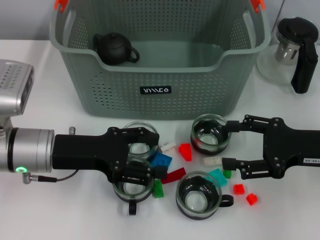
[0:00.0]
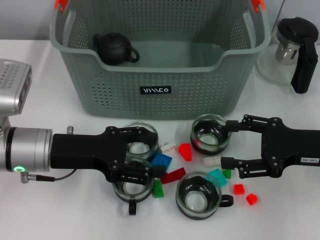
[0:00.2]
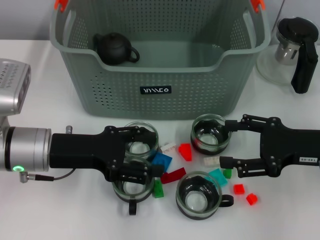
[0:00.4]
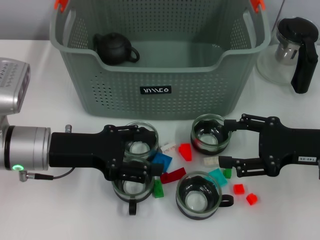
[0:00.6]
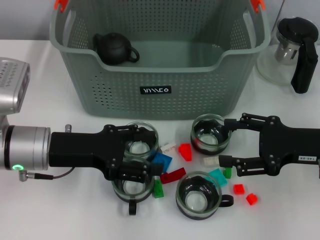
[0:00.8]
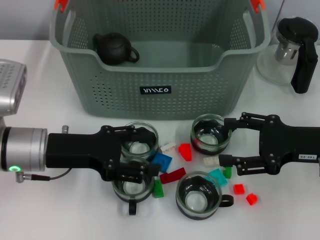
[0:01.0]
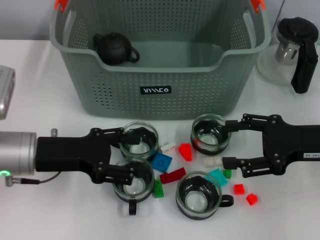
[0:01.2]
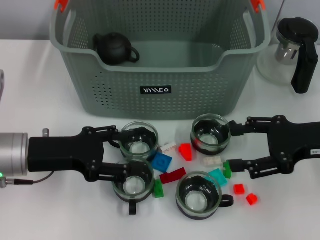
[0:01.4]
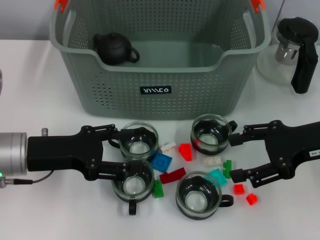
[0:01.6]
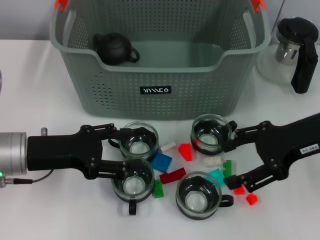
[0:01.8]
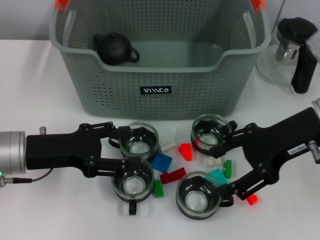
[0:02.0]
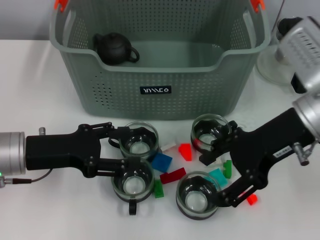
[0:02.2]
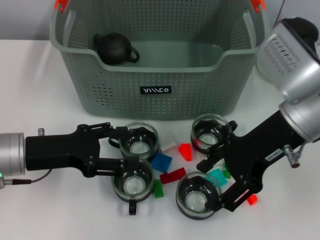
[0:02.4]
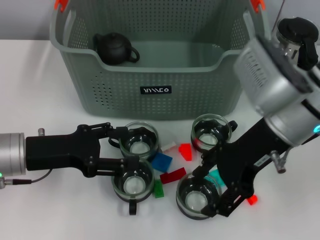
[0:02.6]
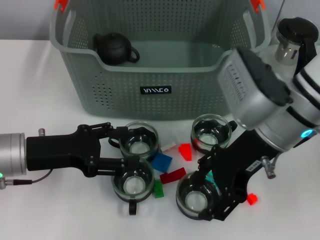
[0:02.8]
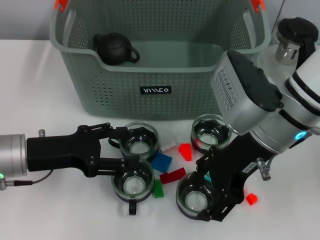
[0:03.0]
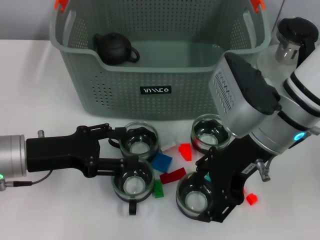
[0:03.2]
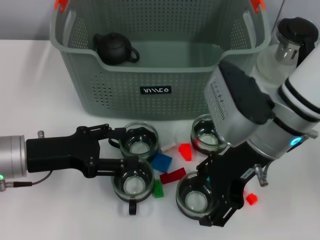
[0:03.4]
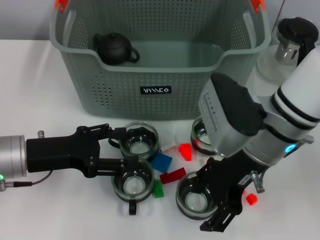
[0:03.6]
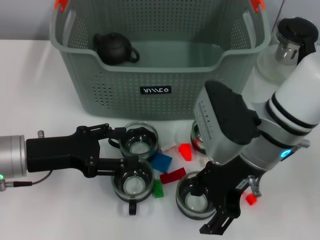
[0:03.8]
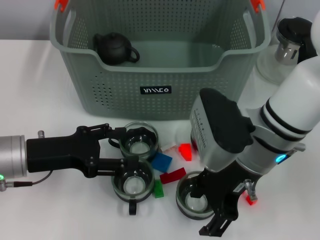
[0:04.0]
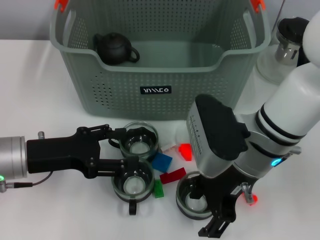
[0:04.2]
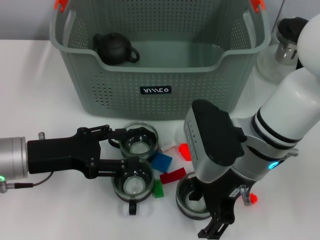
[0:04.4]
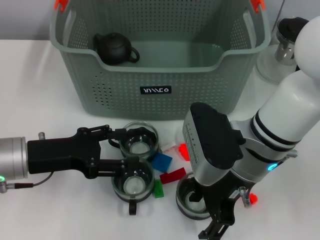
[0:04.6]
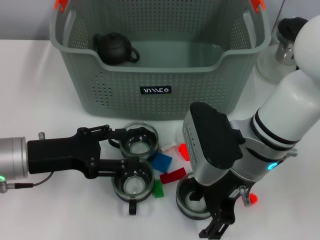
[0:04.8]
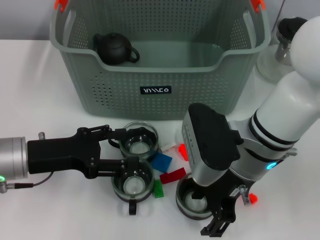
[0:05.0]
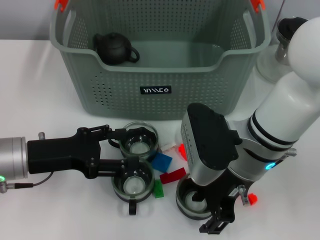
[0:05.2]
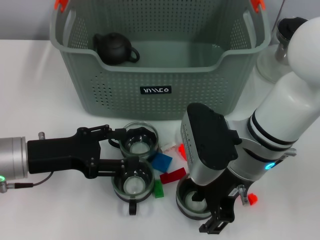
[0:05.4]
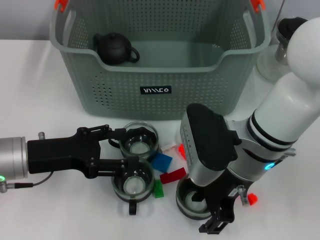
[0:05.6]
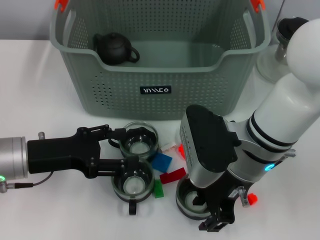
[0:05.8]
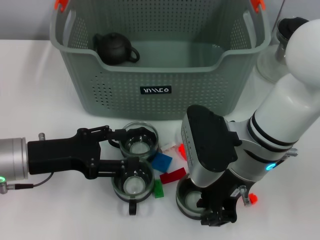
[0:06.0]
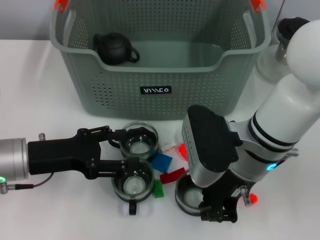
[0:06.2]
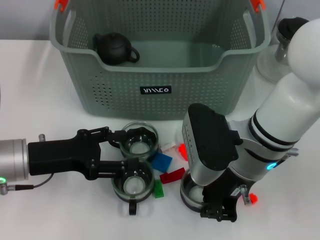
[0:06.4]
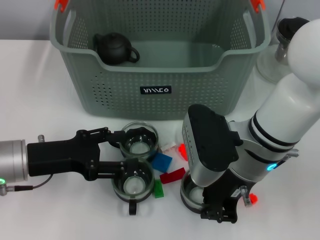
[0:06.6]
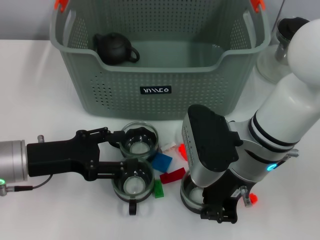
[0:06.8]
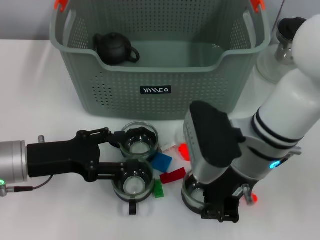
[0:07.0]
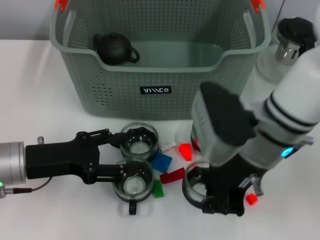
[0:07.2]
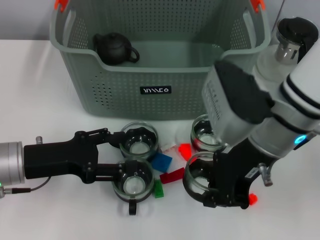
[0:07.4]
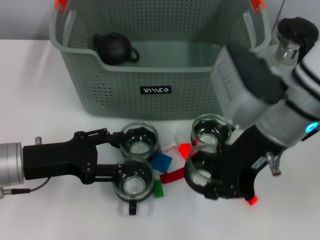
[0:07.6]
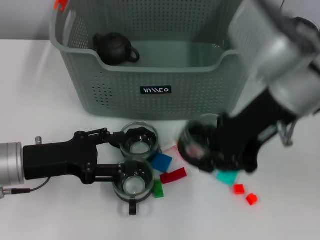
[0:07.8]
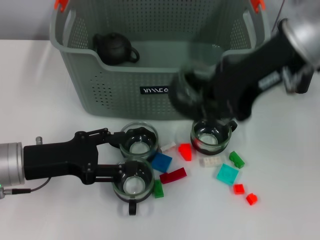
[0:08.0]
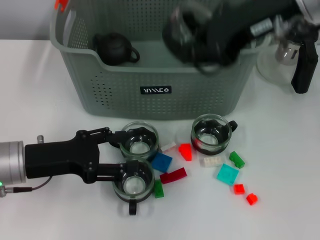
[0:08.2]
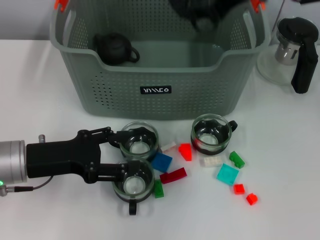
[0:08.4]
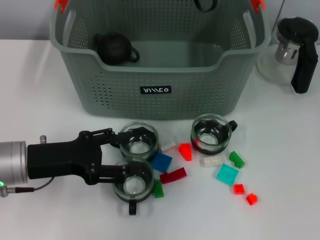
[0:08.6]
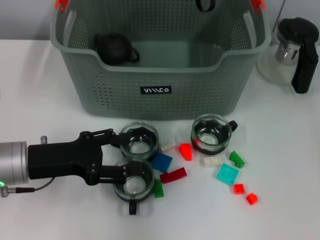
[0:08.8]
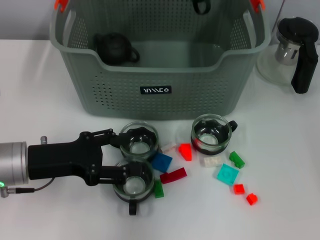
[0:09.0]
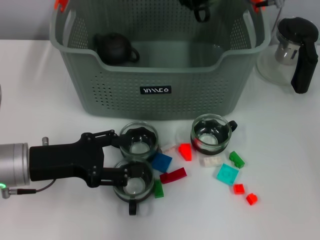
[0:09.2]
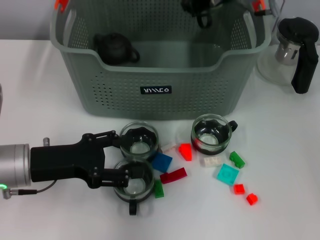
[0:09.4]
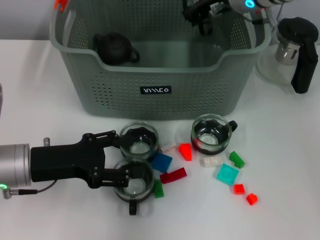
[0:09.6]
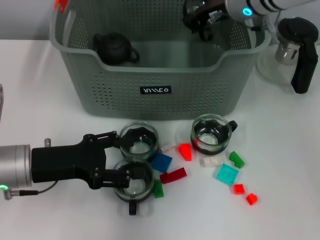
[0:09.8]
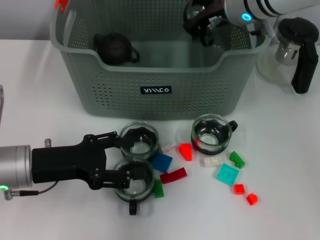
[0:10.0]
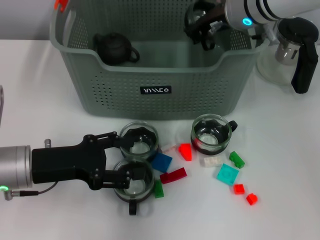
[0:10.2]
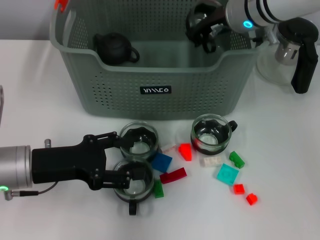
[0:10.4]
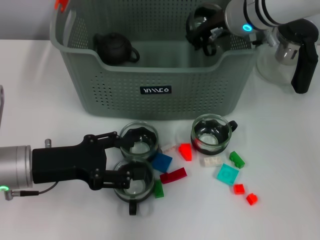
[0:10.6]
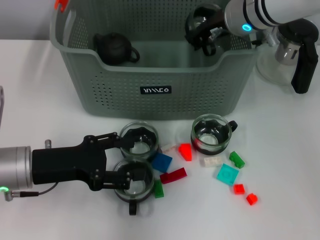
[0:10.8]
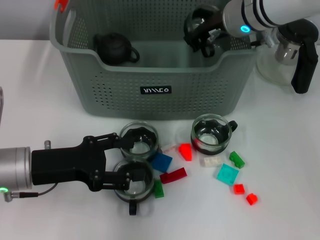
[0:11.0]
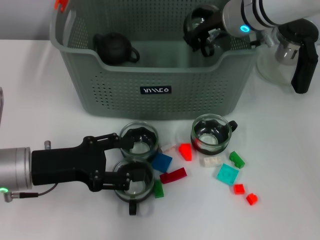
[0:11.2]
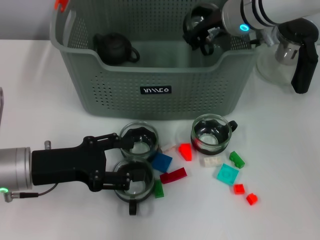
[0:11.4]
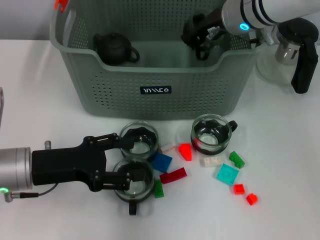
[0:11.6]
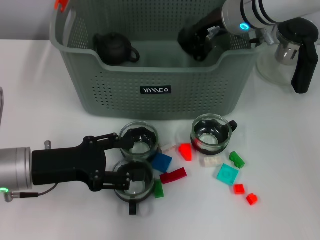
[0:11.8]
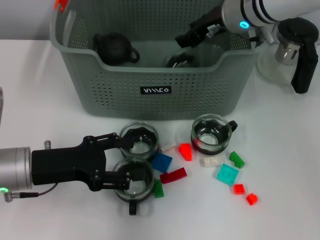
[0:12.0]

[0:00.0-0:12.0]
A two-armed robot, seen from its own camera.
Task of the whole recording: pick up the teacup on the table and place it into the storage bin, pick up the block on the table and place it into the storage bin.
Step, 0:00.0 to 0:06.4: Grasp the cup with right gripper.
0:00.0 to 0:01.6: The grippers stay close to where they were, moving slightly.
0:01.6 to 0:03.0: The right gripper goes approximately 15 cm to the left.
0:03.0 to 0:04.4: The right gripper changes place by roughly 5 cm.
0:04.4 to 0:06.0: Both grippers stay about where they are.
0:06.0 to 0:07.6: The right gripper is displaced upward by some 5 cm, and closes up.
0:07.6 to 0:09.0: The right gripper moves forward and upward, approximately 15 cm.
0:09.0 to 0:10.4: The right gripper shifts approximately 10 cm downward.
0:10.4 to 0:12.0: Both grippers stay put.

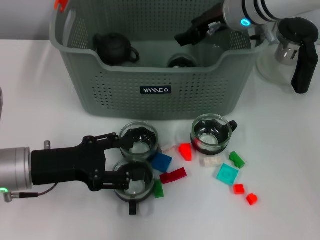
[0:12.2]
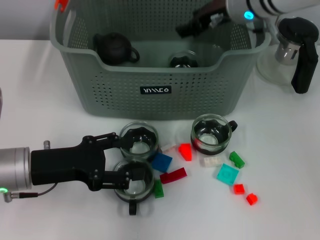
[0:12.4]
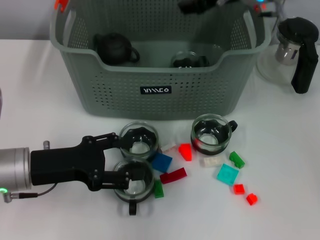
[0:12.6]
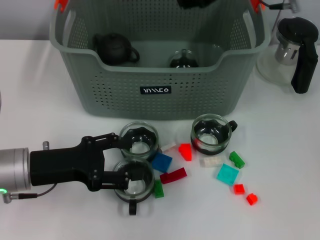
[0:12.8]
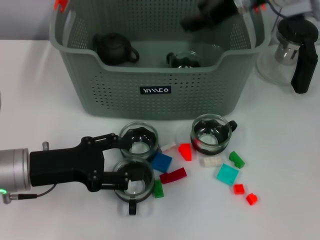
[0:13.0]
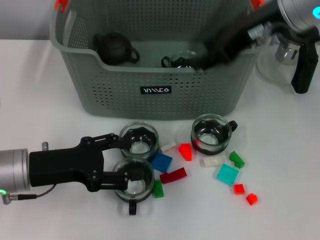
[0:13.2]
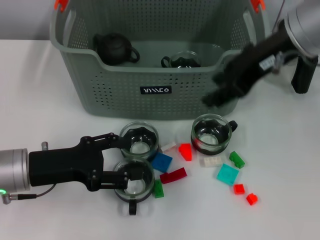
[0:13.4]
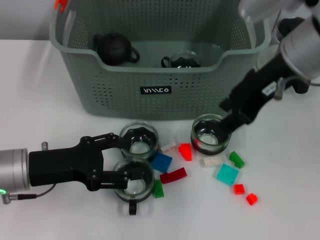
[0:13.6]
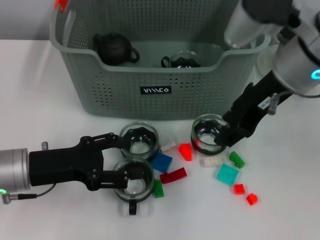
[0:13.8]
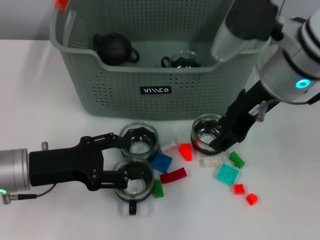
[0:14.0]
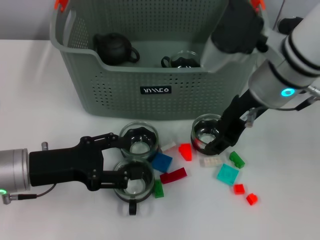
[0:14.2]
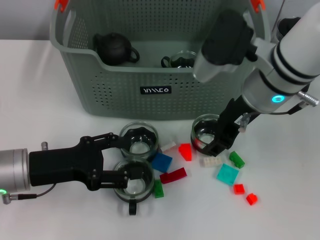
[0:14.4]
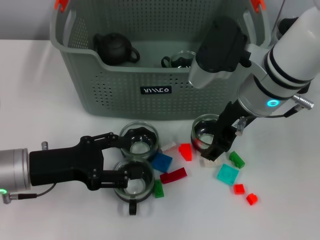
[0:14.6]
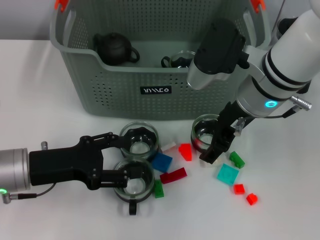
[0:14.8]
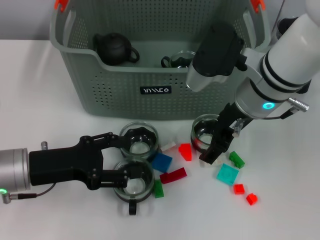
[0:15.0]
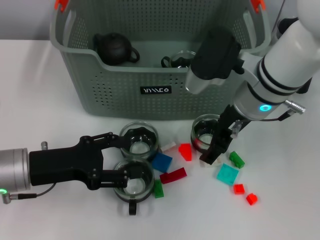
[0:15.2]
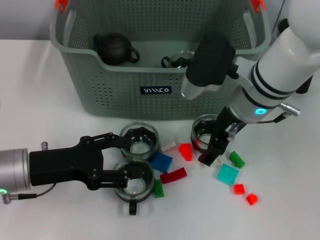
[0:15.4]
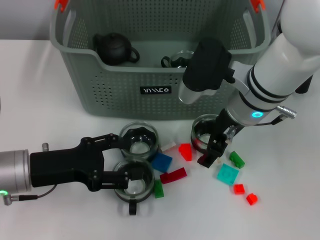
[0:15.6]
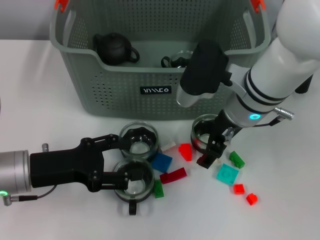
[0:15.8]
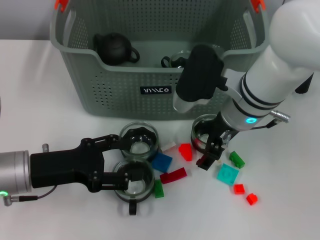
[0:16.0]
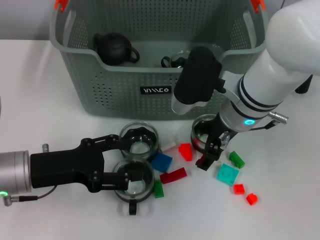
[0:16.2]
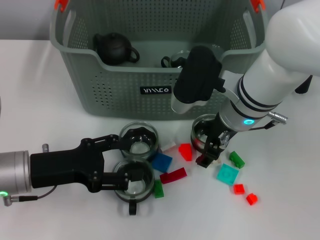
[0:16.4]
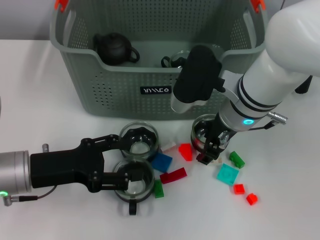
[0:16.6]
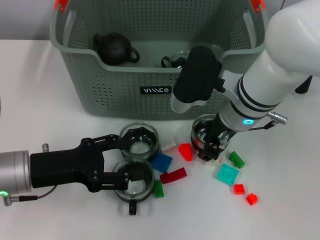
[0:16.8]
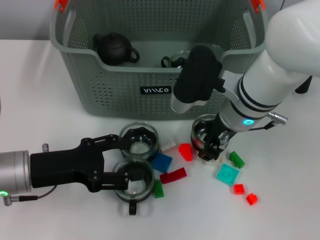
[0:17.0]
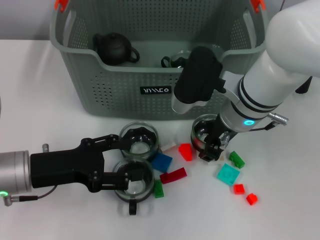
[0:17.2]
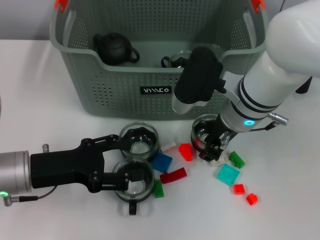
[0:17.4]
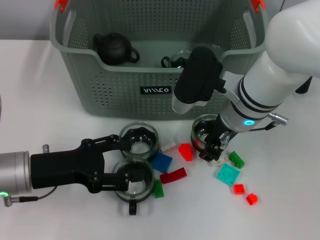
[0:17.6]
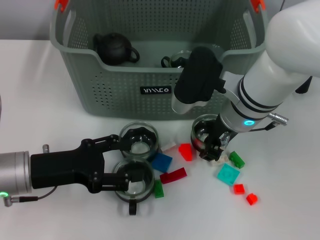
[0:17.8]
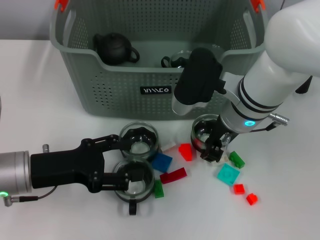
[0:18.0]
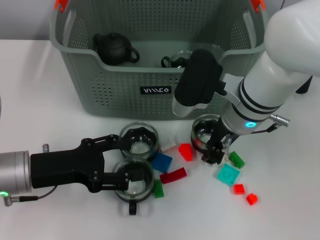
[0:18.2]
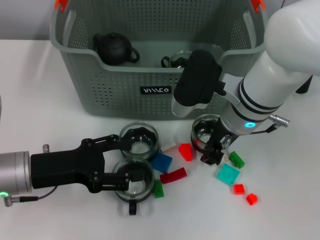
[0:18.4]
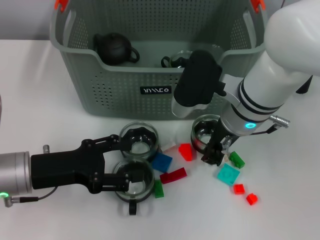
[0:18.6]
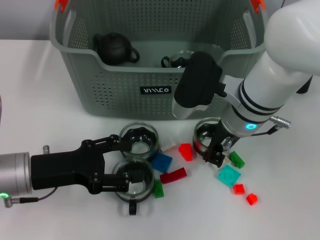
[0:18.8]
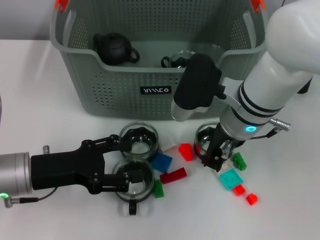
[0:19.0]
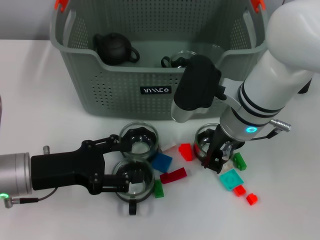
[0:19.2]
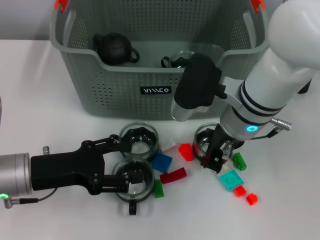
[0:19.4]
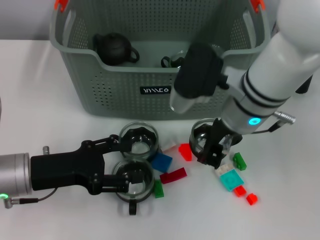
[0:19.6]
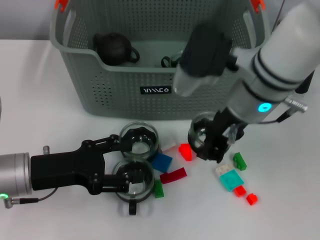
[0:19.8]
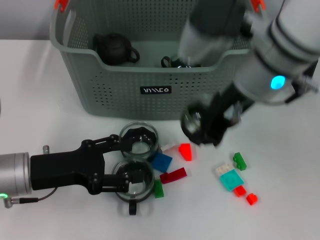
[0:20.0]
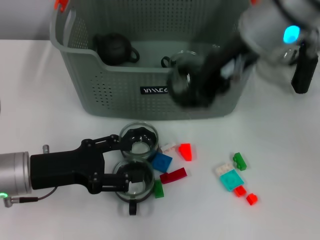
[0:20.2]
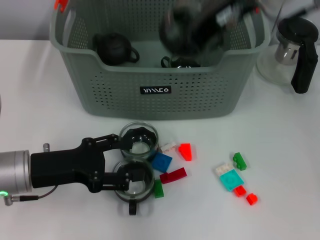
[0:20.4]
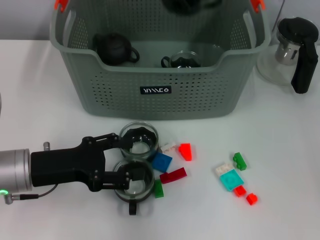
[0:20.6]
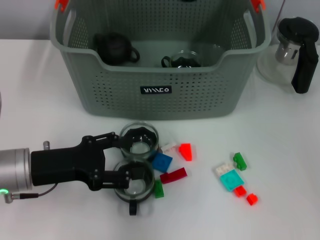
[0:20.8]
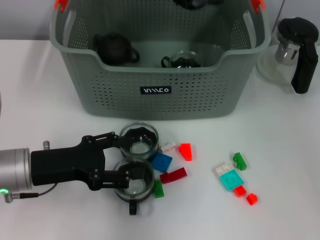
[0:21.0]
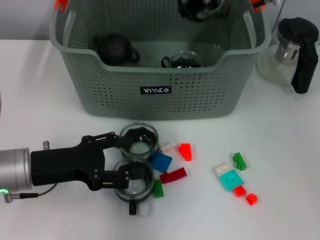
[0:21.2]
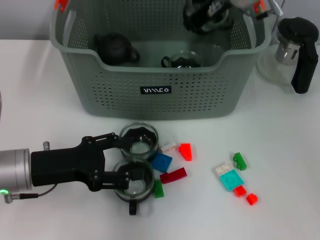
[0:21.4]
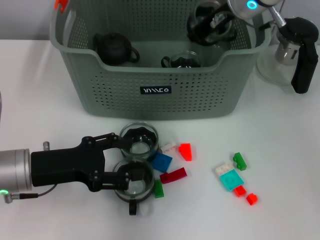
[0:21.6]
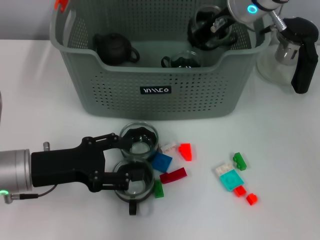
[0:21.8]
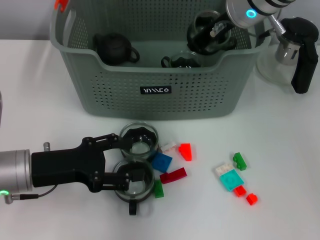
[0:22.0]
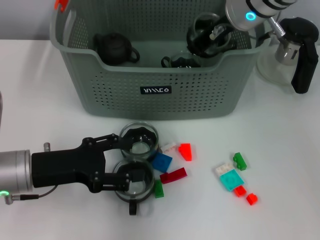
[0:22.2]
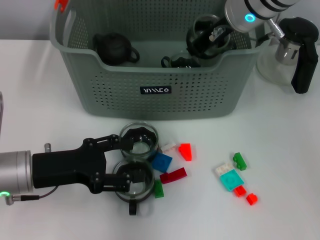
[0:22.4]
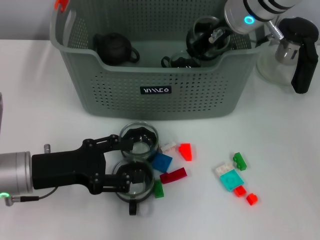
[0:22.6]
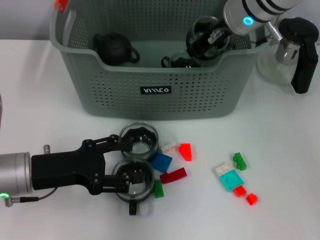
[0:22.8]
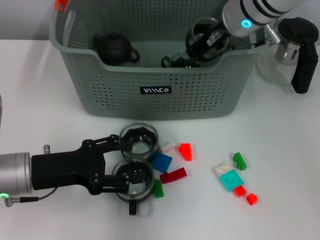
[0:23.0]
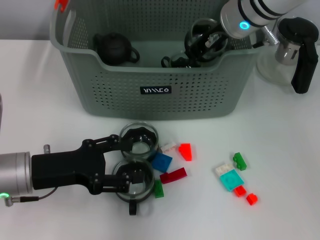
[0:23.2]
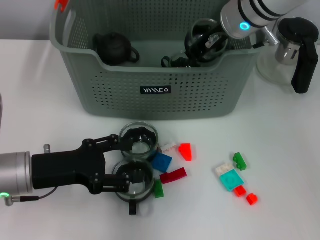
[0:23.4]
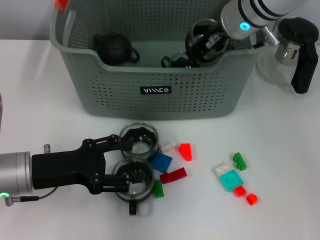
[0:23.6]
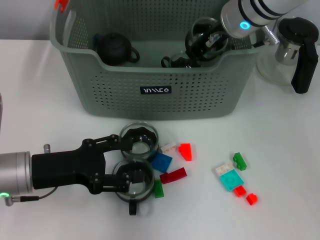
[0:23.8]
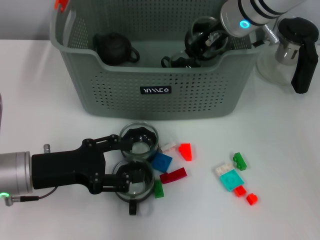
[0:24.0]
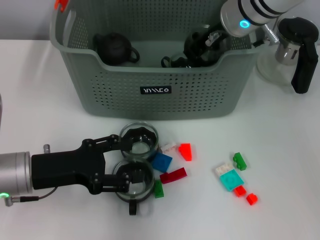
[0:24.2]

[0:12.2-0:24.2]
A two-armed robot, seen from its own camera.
Task of the whole recording: pick up the teacup on the table and place it into the storage bin, pick up the block on the table and place it into the storage bin.
Step, 0:12.4 to 0:18.8: Grasp the cup with right gripper.
0:12.2 to 0:13.8: The right gripper shifts about 10 cm backward.
0:13.8 to 0:15.2: The right gripper shifts about 10 cm downward, and opens.
0:15.2 to 0:16.6: The grippers move only a little.
0:16.6 to 0:18.2: The right gripper closes its fingers.
0:18.2 to 0:19.8: The right gripper shifts some 5 cm upward.
0:19.8 to 0:21.2: The right gripper shifts about 15 cm forward and upward.
0:21.2 to 0:22.6: The grippers move only a little.
0:22.6 to 0:24.2: Both grippers stay about where they are.
